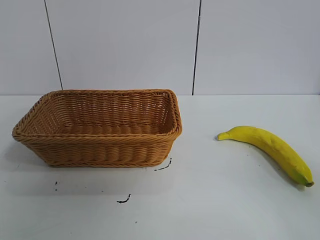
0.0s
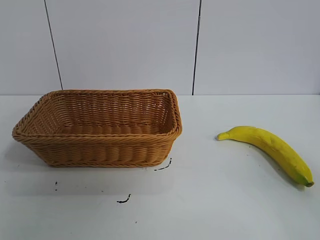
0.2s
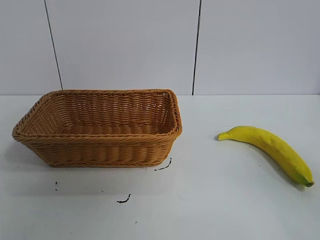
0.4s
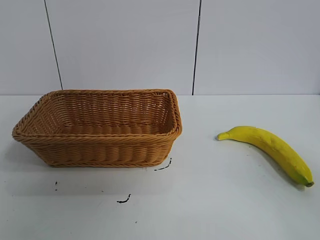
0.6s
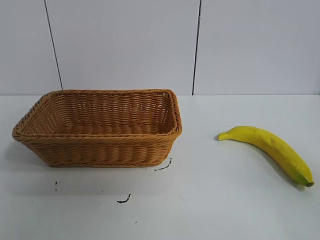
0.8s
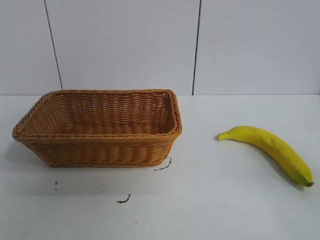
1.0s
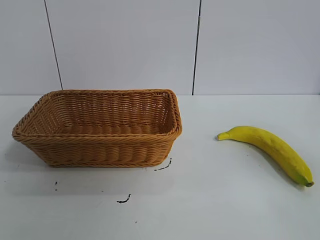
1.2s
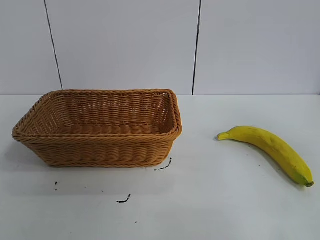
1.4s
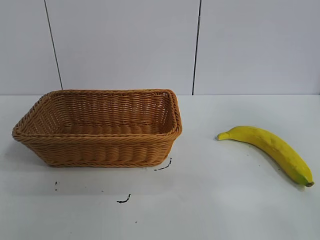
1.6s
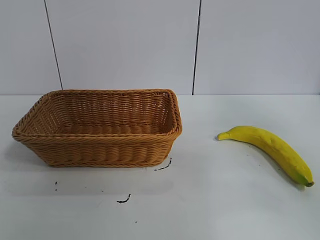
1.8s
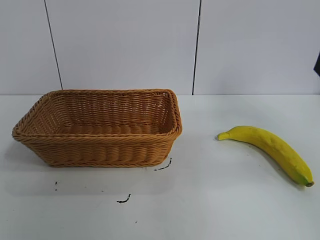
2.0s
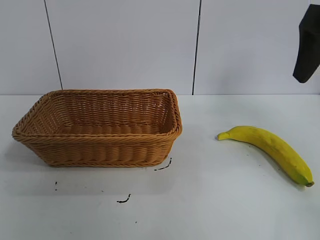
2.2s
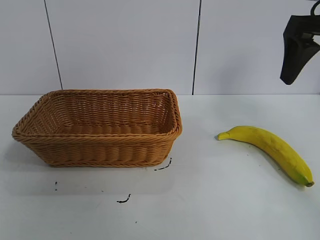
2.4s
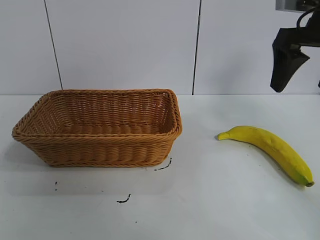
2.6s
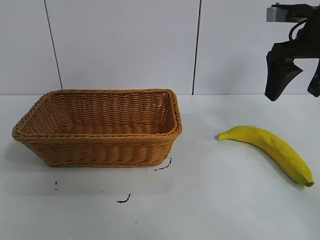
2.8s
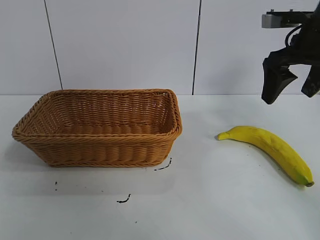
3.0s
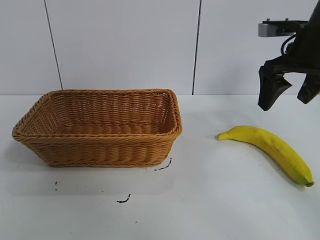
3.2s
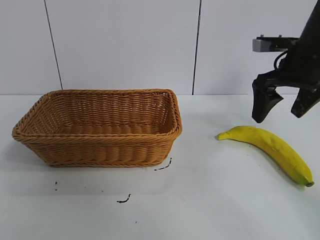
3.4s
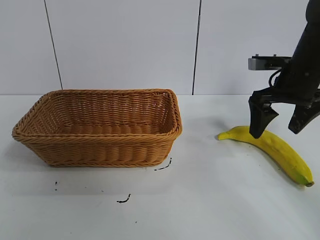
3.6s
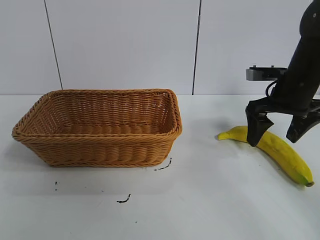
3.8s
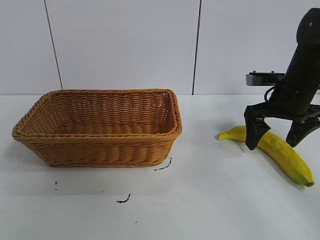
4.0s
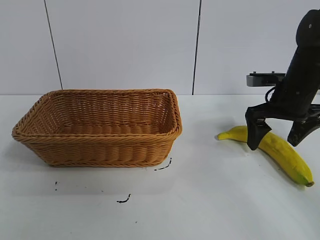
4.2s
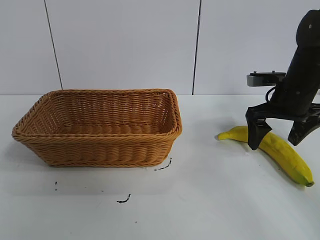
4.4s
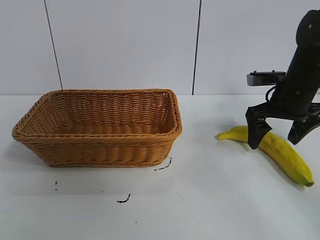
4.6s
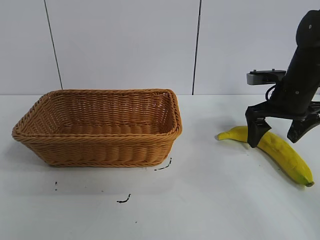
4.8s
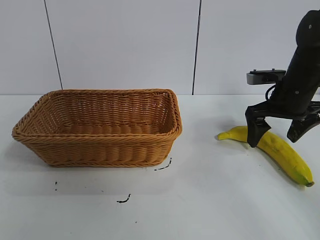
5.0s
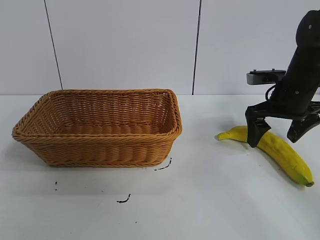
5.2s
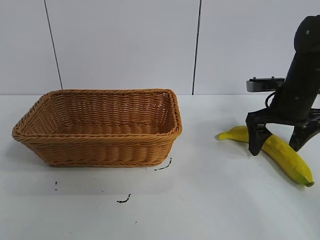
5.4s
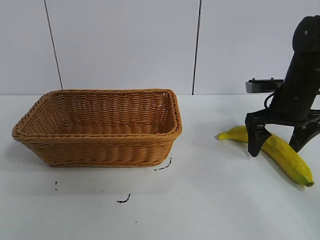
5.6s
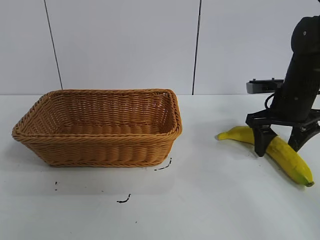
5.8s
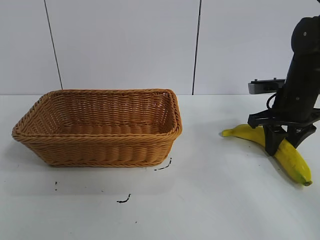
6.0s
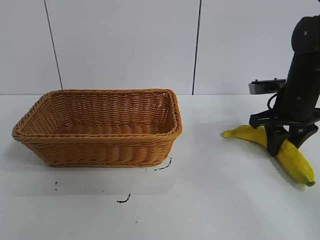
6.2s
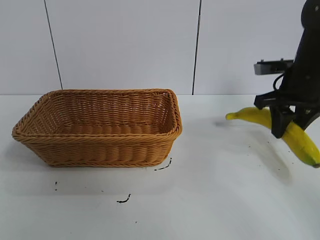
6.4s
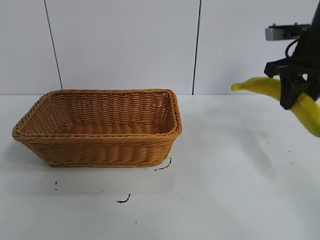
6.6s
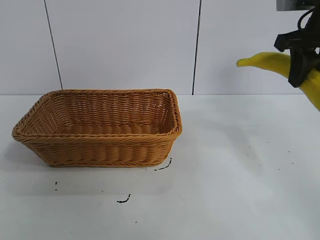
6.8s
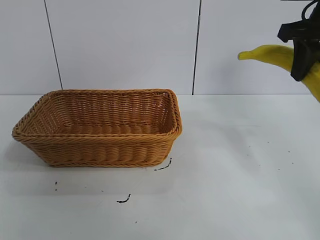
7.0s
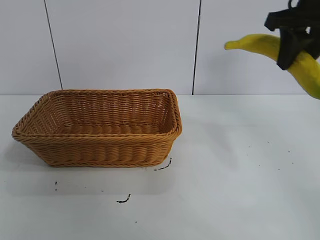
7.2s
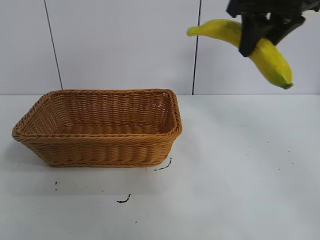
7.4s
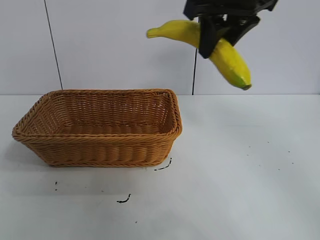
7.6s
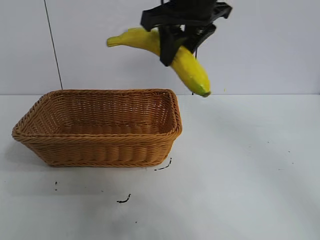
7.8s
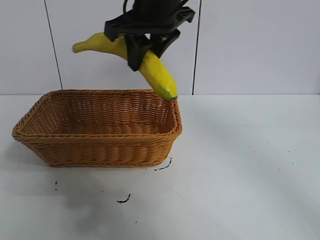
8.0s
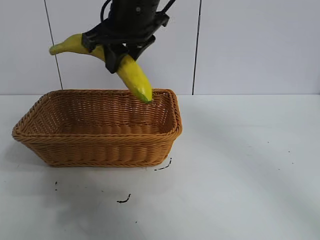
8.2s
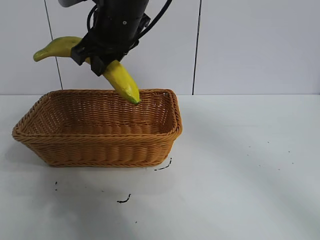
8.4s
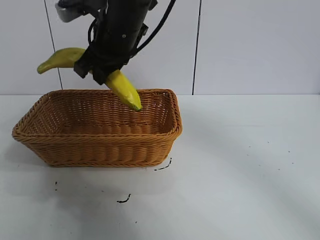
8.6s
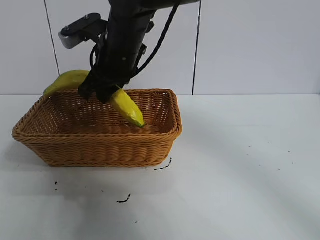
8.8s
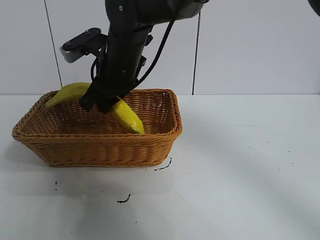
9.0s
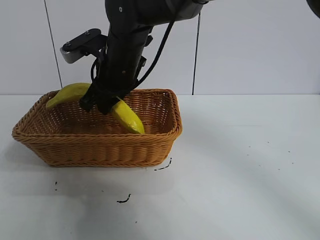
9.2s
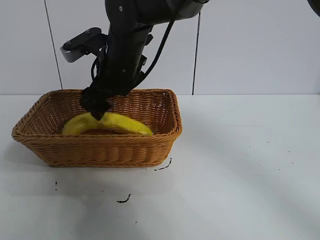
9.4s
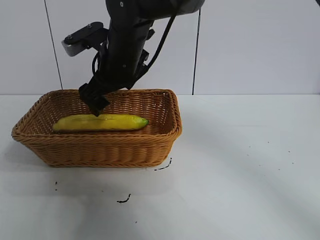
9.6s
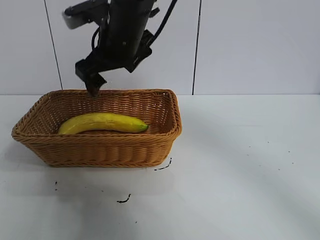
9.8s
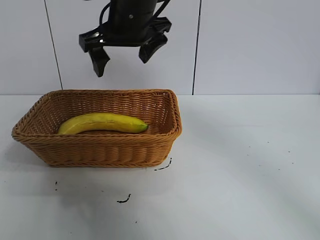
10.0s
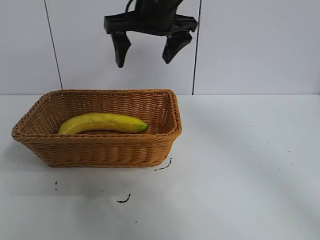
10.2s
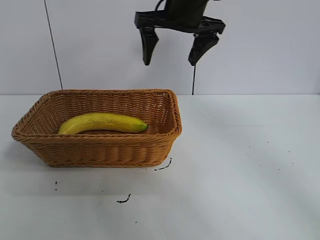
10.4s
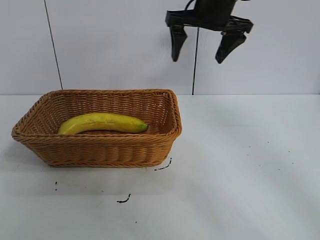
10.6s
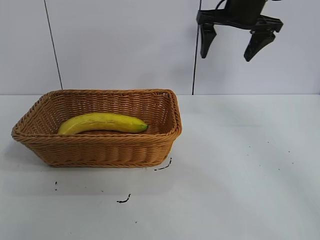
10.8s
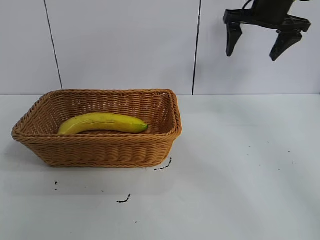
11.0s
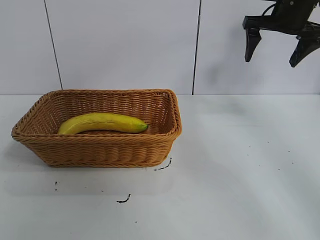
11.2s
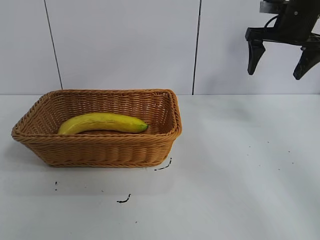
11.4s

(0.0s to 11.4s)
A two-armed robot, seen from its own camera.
Task of the whole recording: pick up the banana and put it into the basket.
Step, 0.8s - 6.2s: Grasp the banana with right gripper.
Step, 6.4s - 9.6s: Place the banana in the basket with right gripper.
